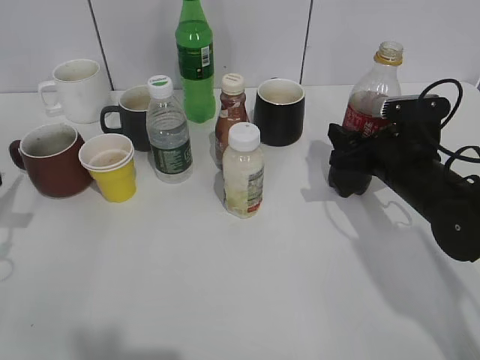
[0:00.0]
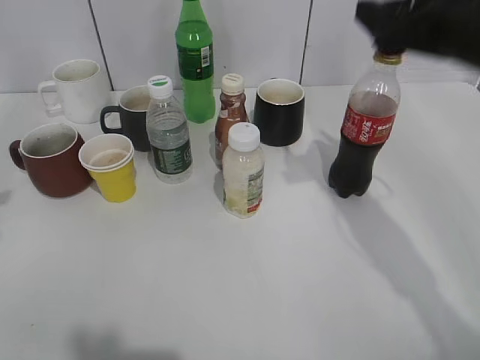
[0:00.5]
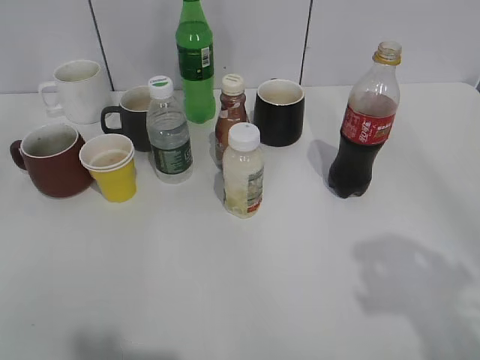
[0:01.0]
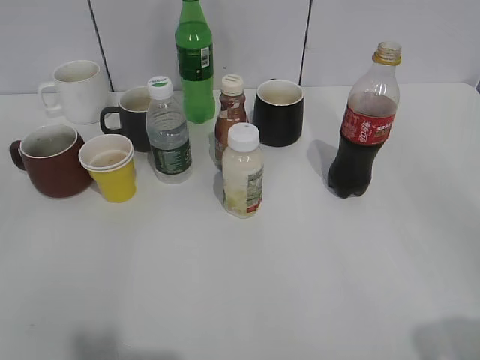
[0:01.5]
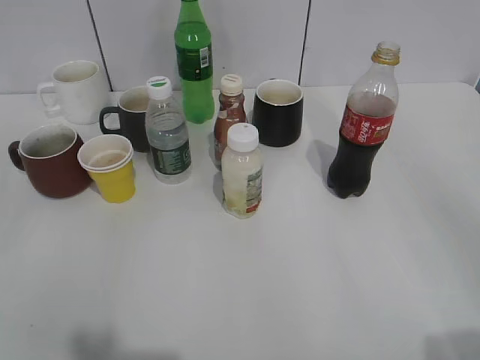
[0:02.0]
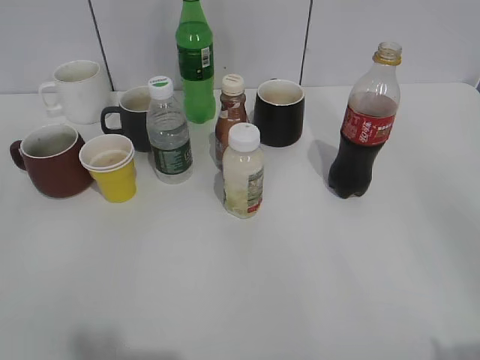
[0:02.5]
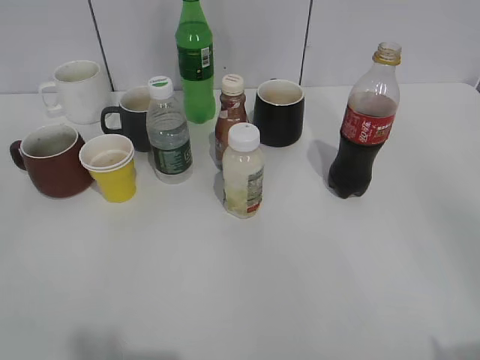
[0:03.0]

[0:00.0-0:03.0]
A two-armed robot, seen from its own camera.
0:00.0 to 0:01.5: Both grippers travel together backward and upward, about 30 cm. The right gripper opens.

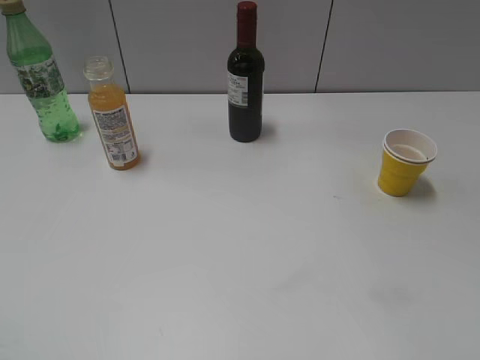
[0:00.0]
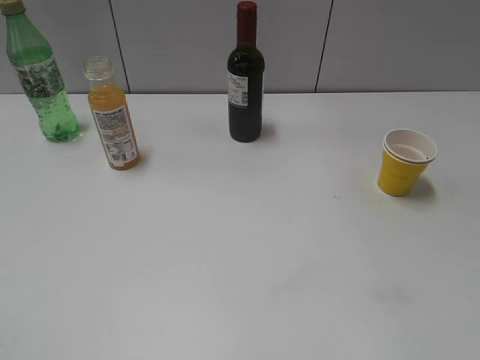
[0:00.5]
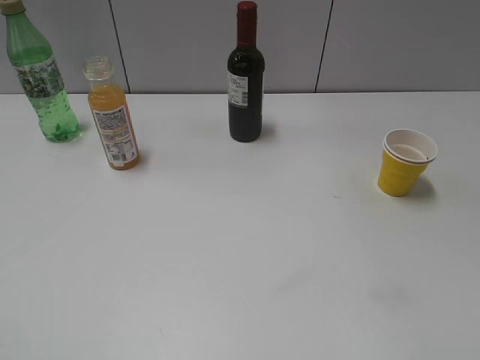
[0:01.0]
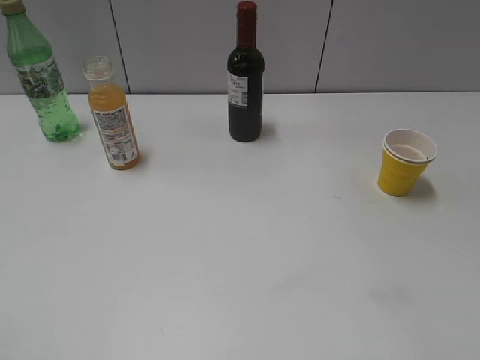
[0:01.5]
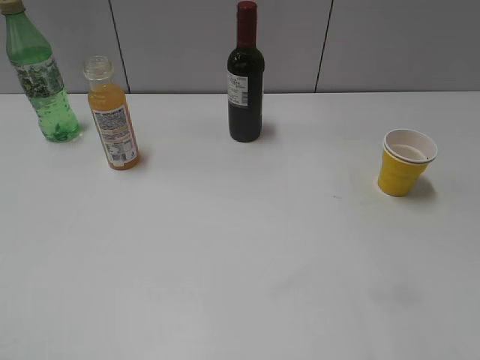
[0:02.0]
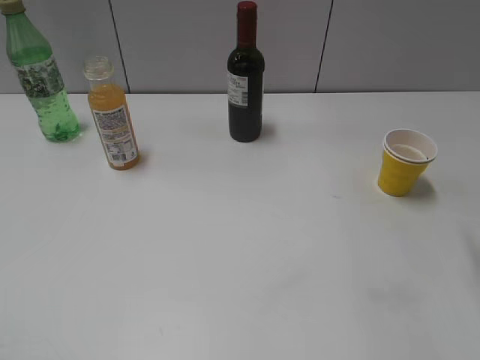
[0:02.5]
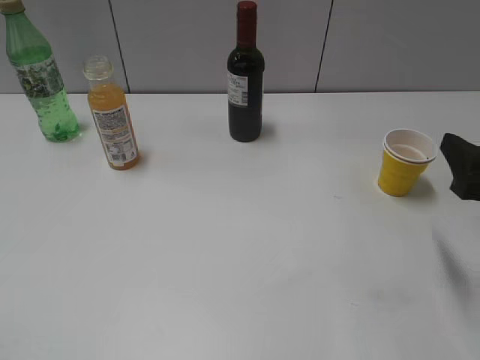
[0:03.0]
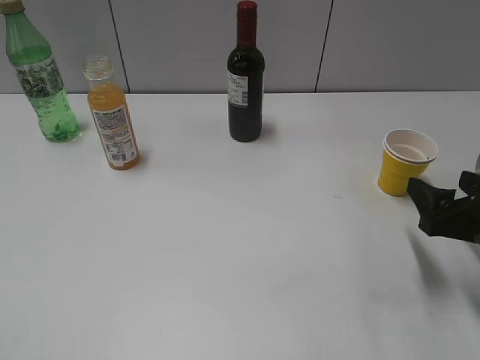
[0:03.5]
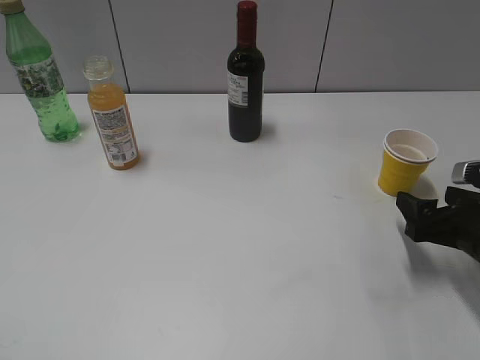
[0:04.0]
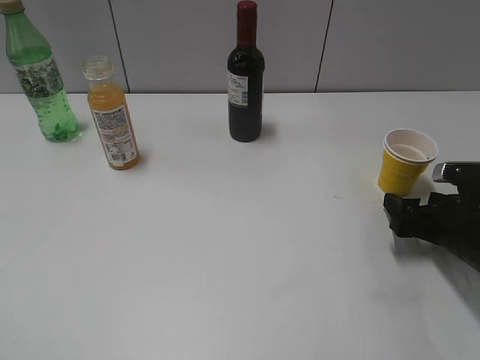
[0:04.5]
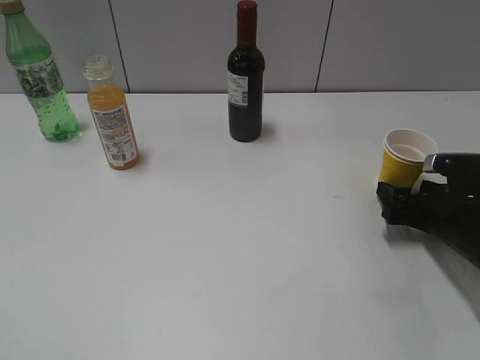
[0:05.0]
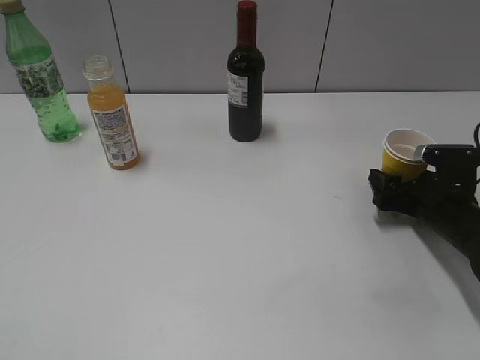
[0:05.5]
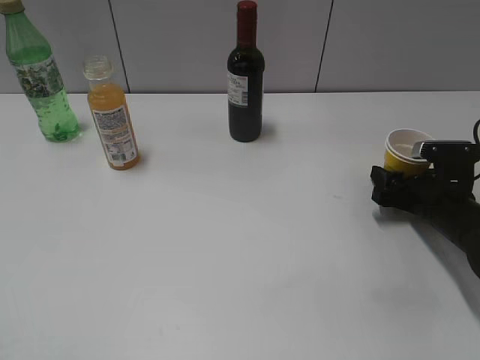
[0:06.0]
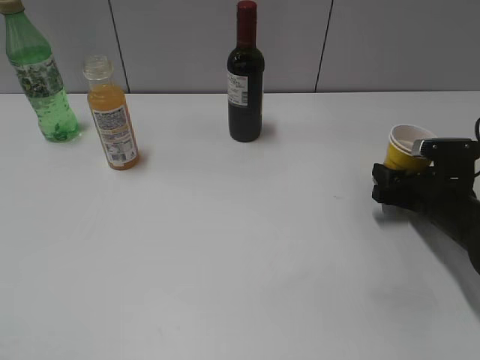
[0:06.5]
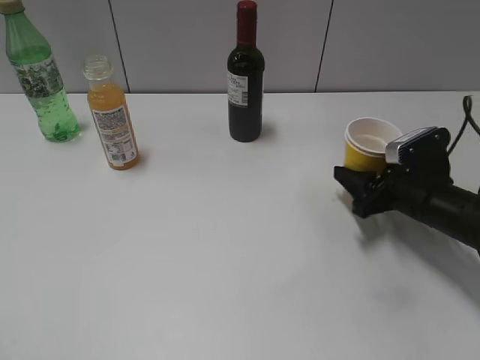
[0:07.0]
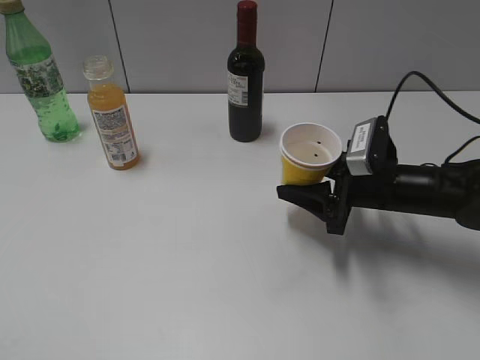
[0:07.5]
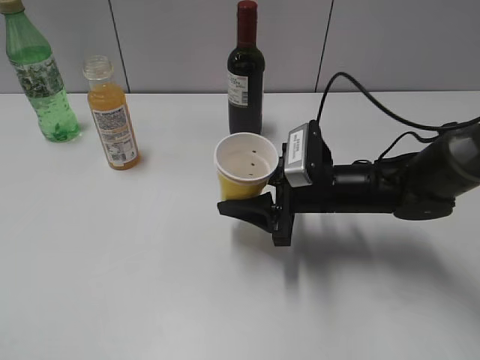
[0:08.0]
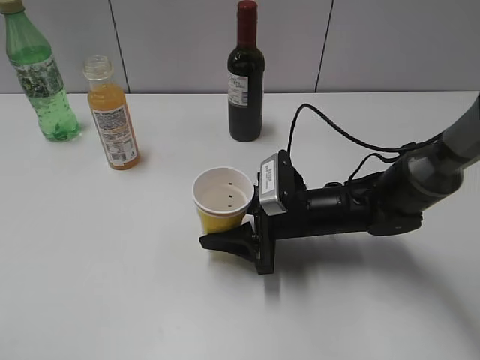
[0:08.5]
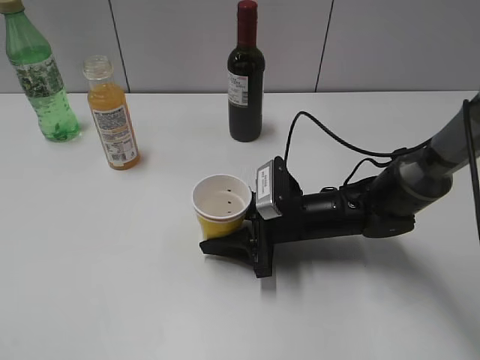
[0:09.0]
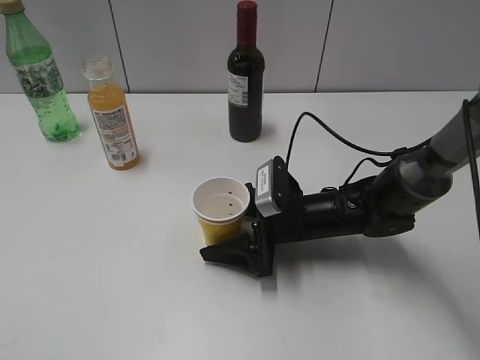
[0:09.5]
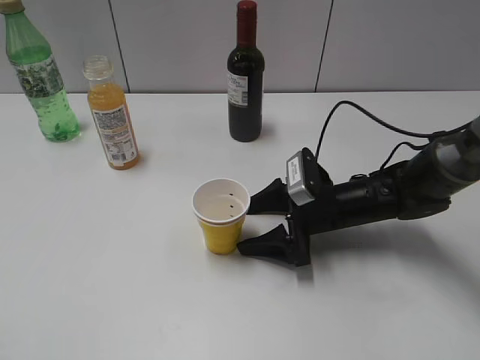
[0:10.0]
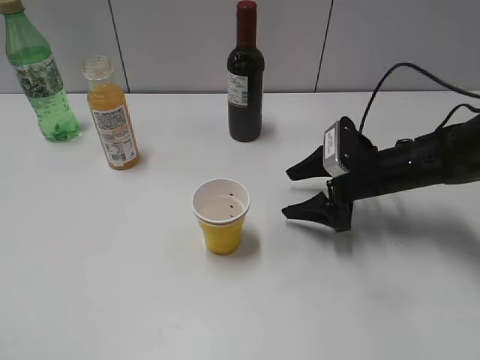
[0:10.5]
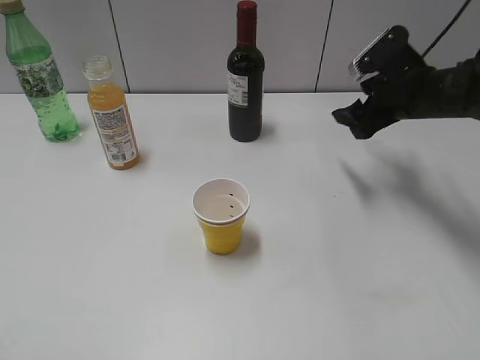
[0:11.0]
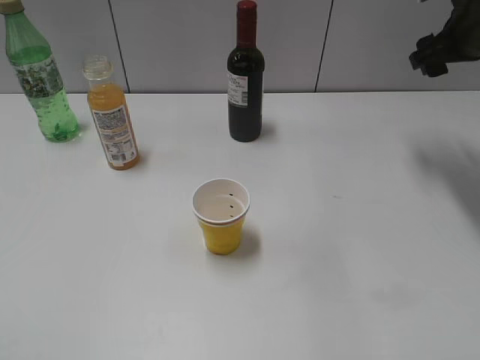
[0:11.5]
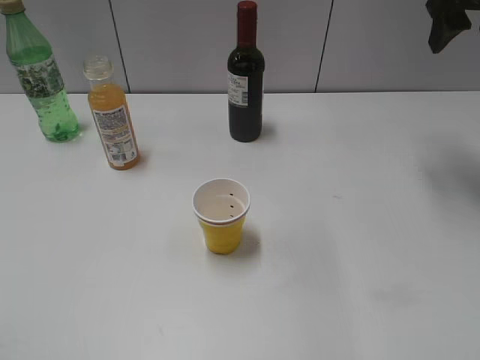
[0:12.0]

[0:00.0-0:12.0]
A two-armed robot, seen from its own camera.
Step, 0:03.0 to 0:06.0: Grasp the yellow paper cup with right gripper.
Step, 0:07.0 to 0:09.5: Place the yellow paper cup on the table with right gripper.
0:02.0 to 0:04.0: The right gripper shifts about 25 cm downward and forward.
0:04.0 to 0:06.0: The right gripper travels forward by approximately 10 cm, and closes up.
0:06.0 to 0:08.0: The right gripper goes roughly 15 cm to the left, and closes.
0:08.0 to 0:10.0: The right gripper ends up some 5 cm from where it was, and opens up.
0:10.0 to 0:12.0: The right gripper shifts approximately 30 cm upward and to the right.

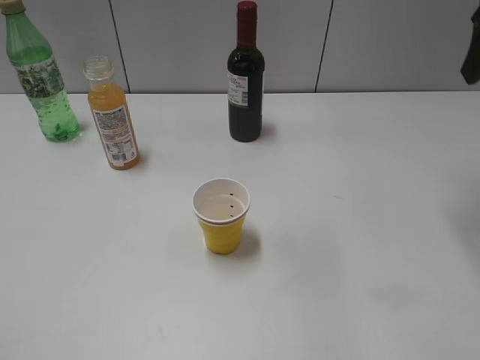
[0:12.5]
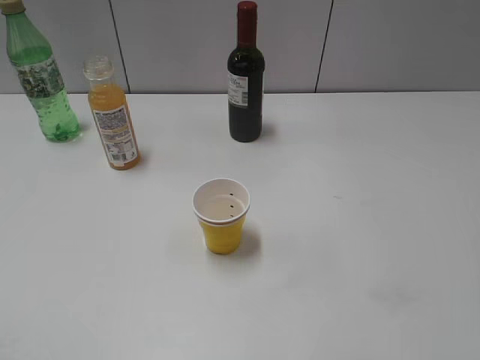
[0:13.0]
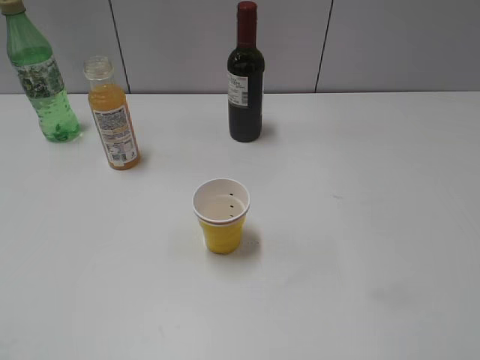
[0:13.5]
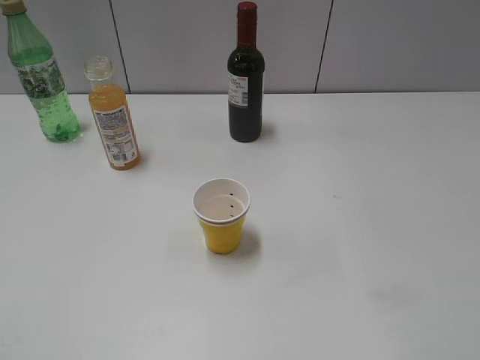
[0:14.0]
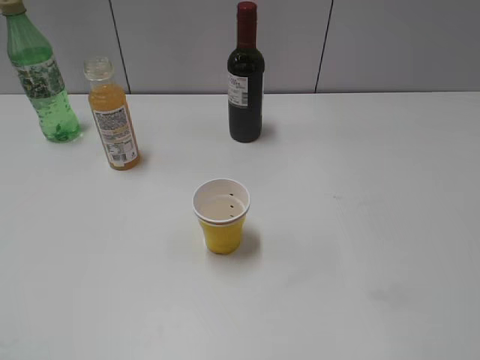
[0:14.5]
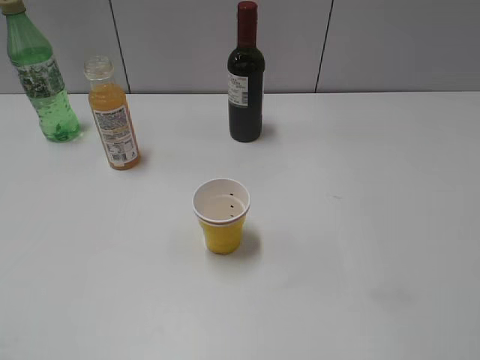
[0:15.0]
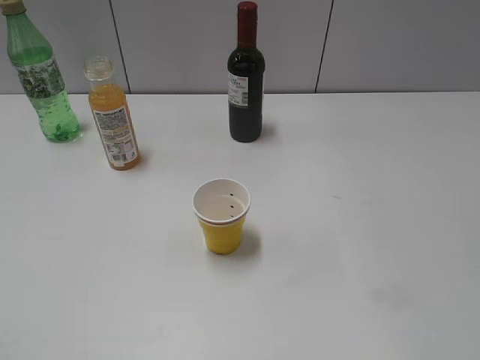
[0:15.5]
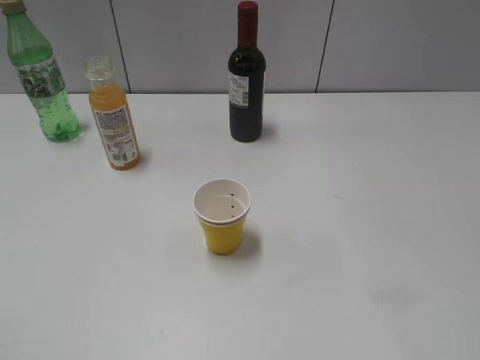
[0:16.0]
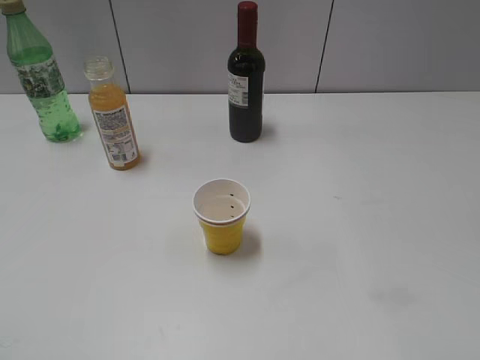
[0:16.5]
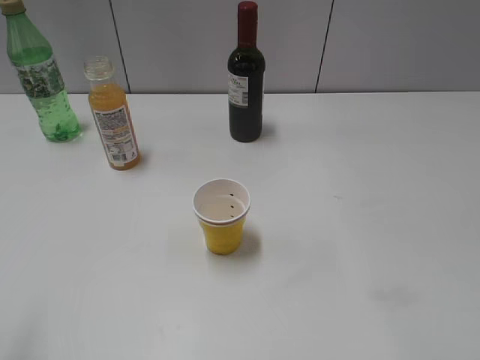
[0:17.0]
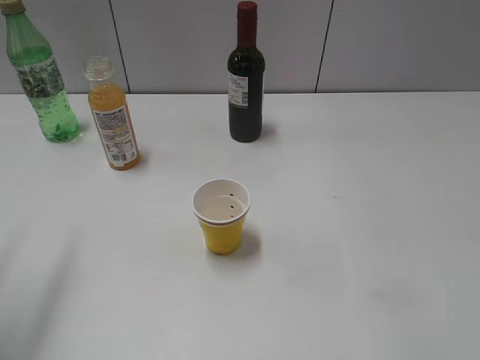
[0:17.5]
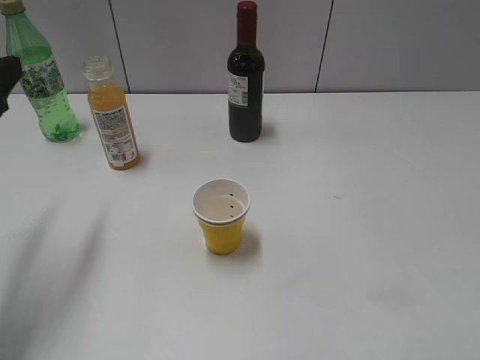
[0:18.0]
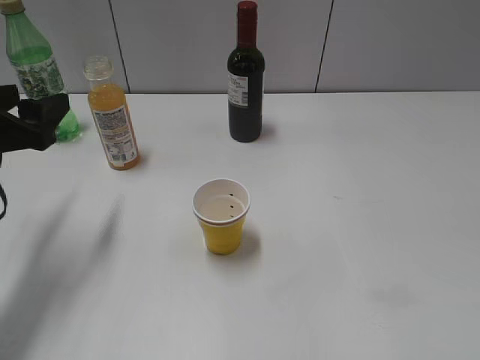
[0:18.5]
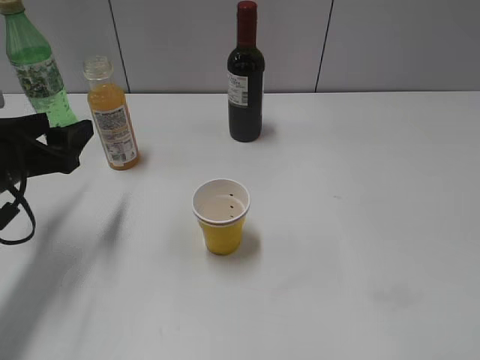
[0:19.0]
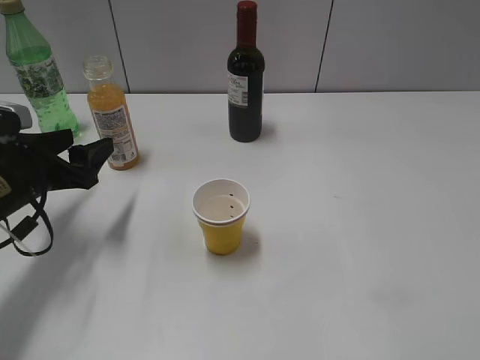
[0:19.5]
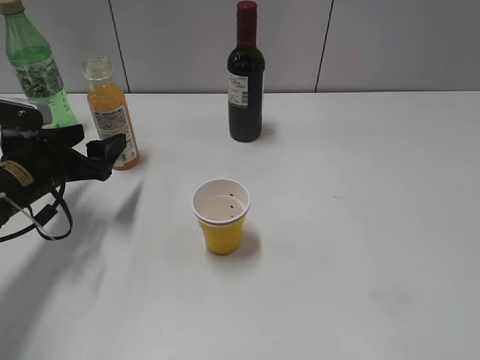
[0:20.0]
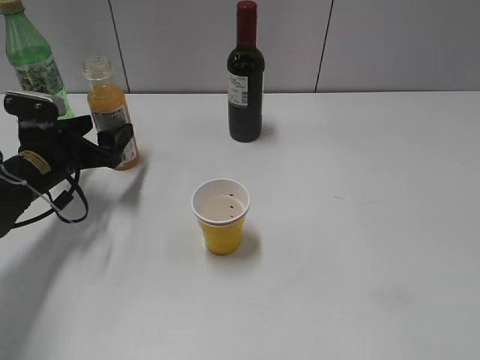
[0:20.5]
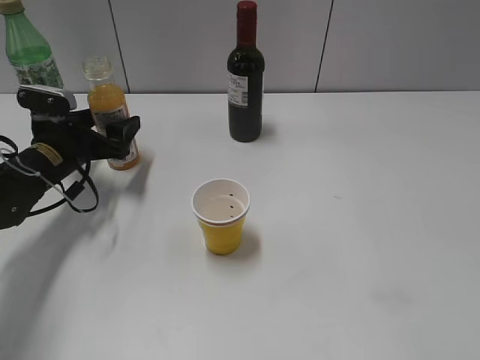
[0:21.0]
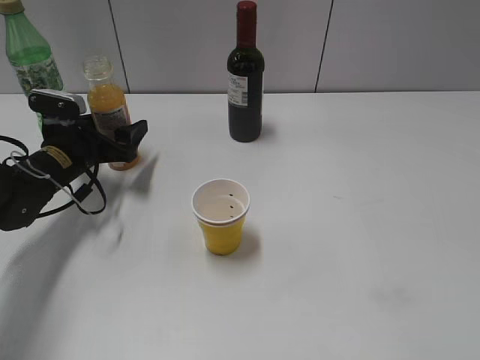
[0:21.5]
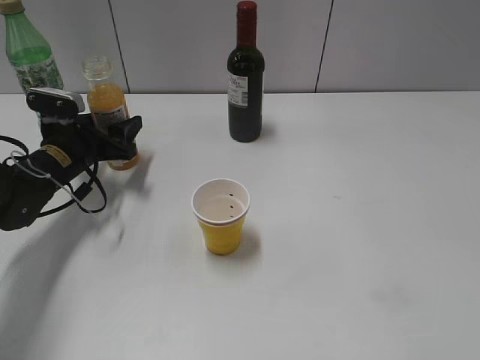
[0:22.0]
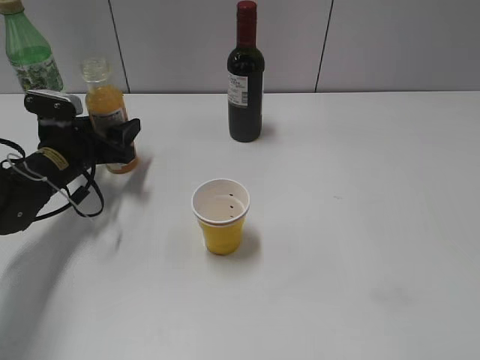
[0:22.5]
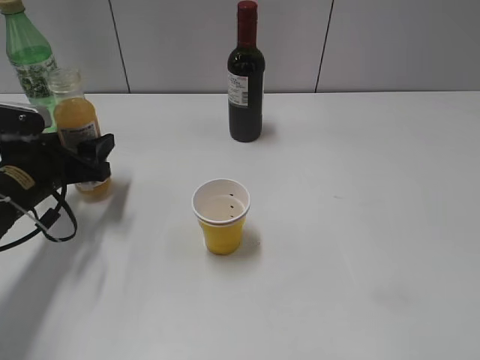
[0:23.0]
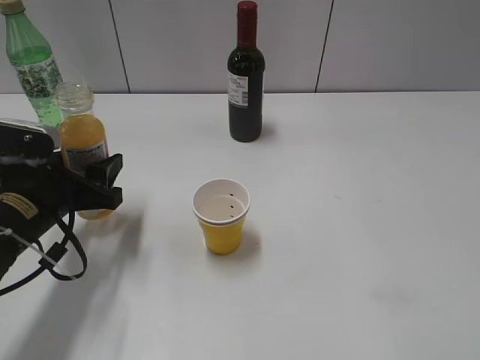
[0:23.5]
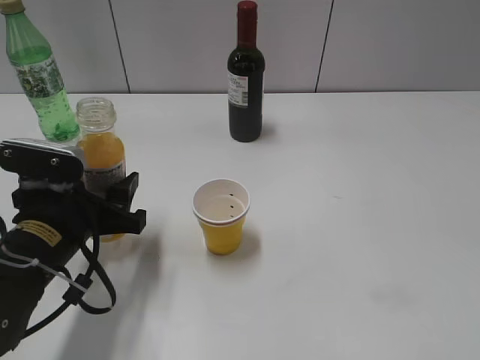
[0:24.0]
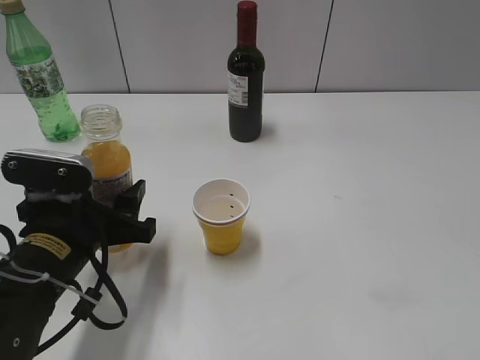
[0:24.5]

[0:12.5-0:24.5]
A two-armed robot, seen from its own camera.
Step, 0:12.5 to 0:22.5: Grasp the bottle with orange juice with left gripper.
0:12.5 to 0:14.5: The right gripper travels backward by some 35 cm.
0:16.5 to 0:18.5: The left gripper is displaced forward by some 25 cm.
0:18.5 to 0:20.5: The left gripper travels downward and forward by about 15 cm.
0:20.5 to 0:22.5: The left gripper closes its fingers.
0:22.5 to 0:24.5: The left gripper is displaced backward by roughly 20 cm.
